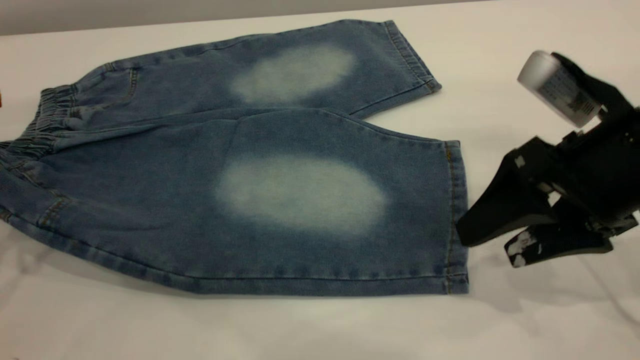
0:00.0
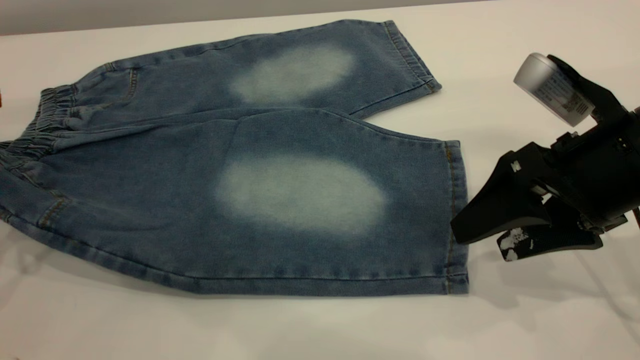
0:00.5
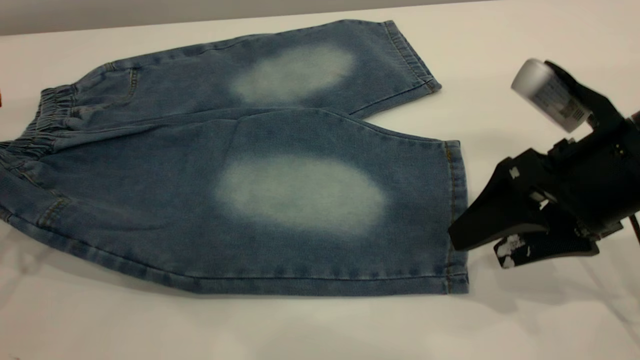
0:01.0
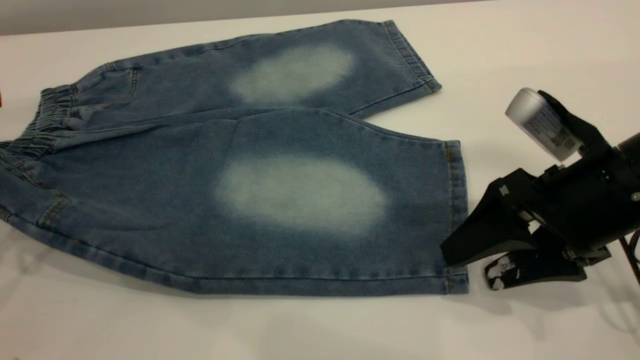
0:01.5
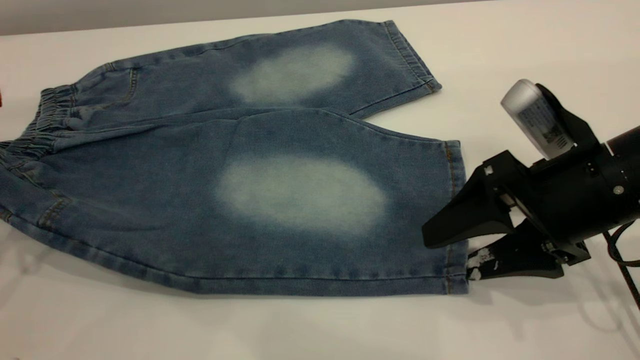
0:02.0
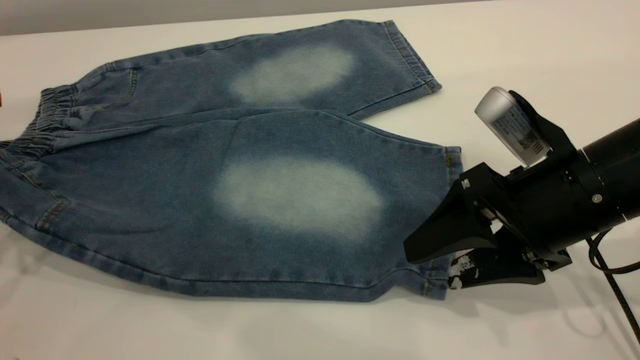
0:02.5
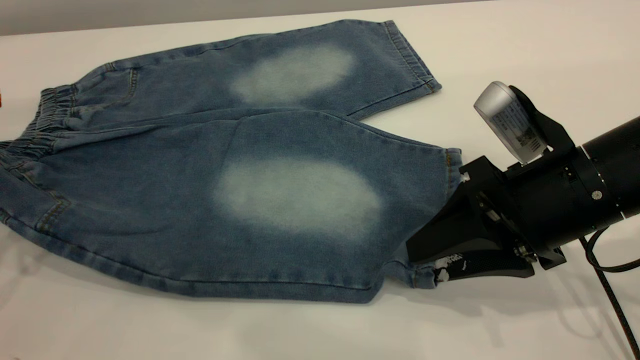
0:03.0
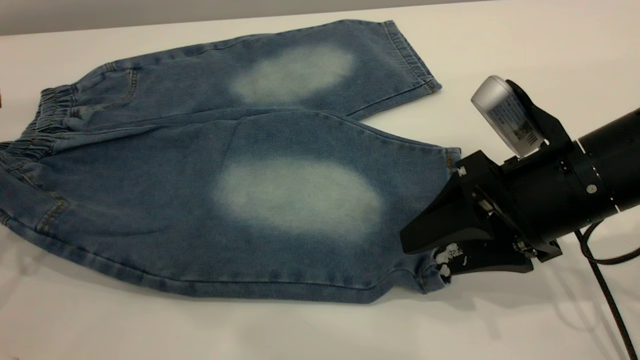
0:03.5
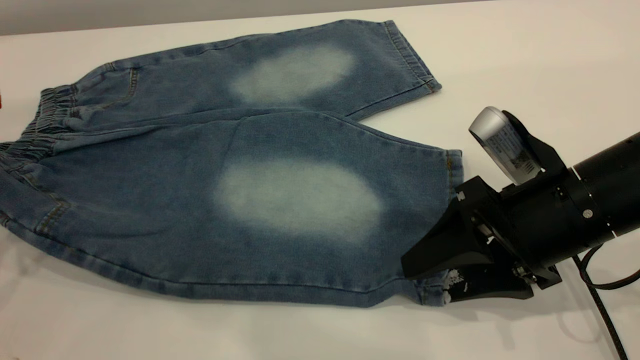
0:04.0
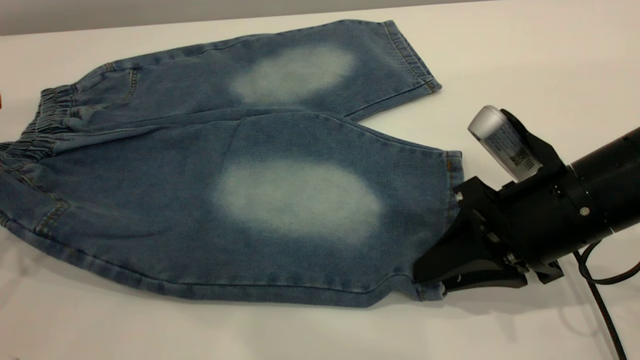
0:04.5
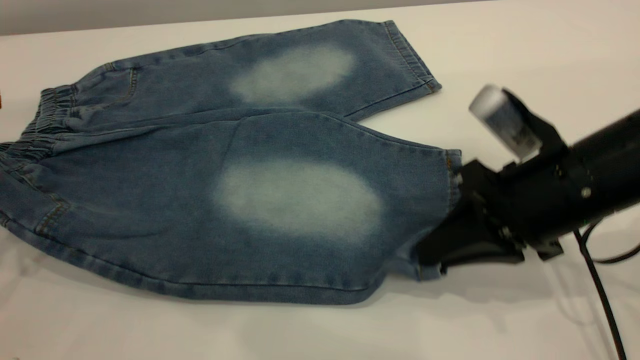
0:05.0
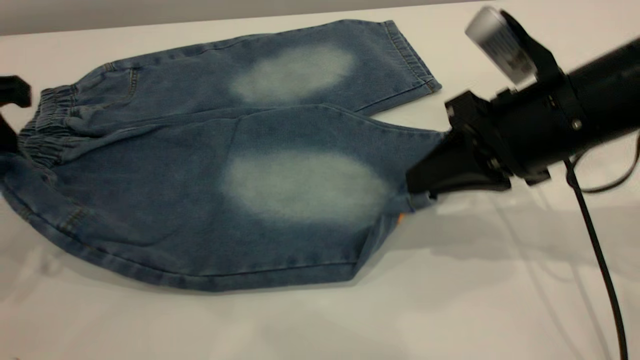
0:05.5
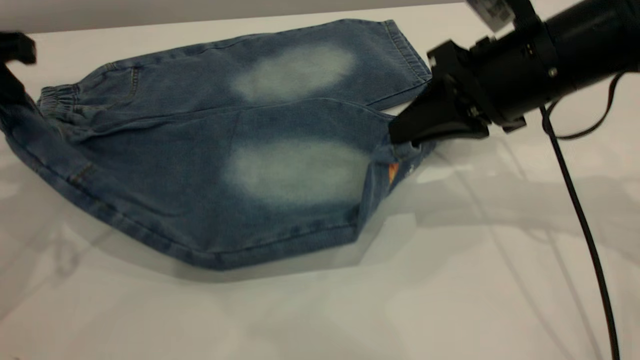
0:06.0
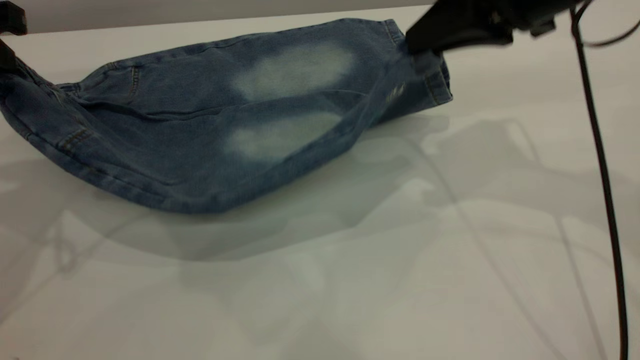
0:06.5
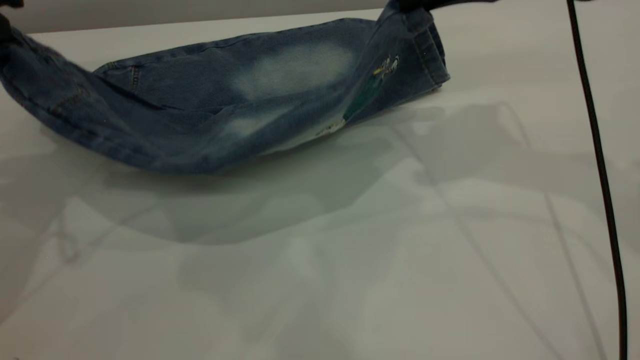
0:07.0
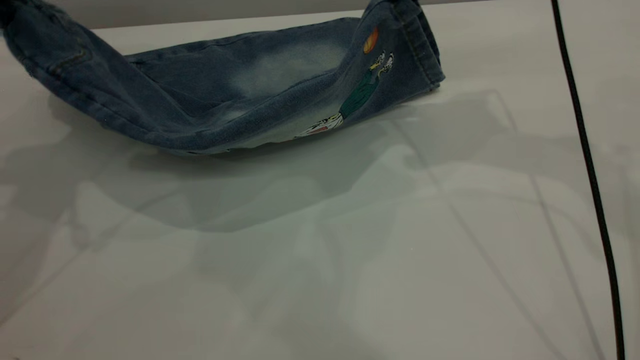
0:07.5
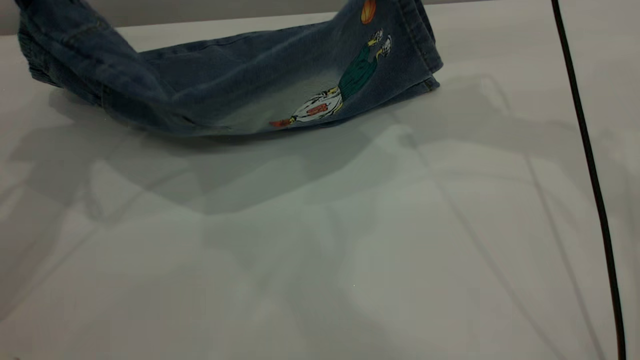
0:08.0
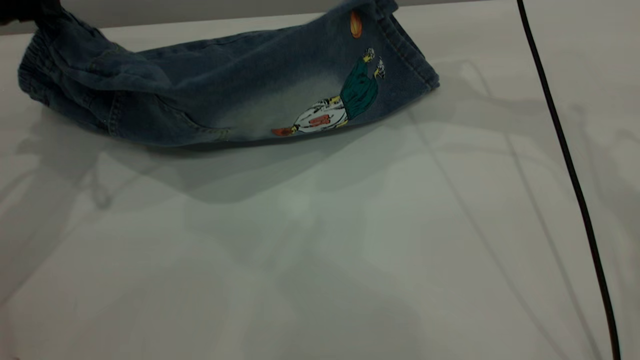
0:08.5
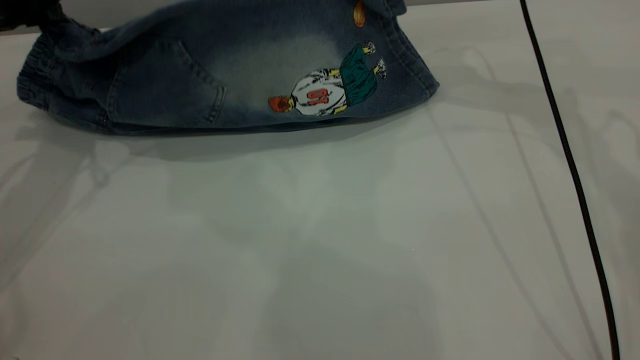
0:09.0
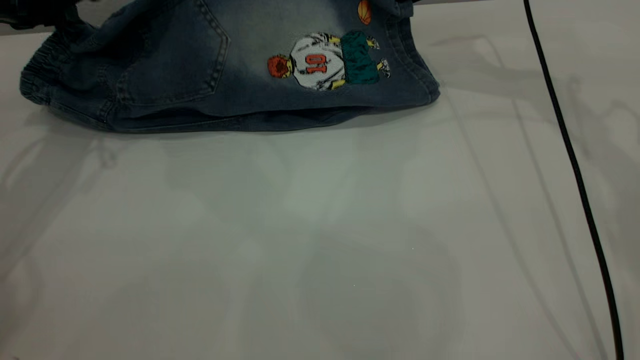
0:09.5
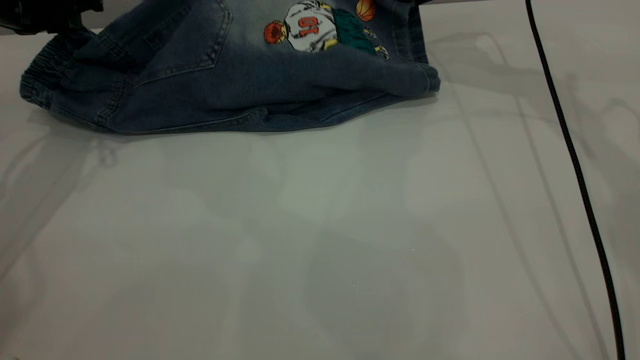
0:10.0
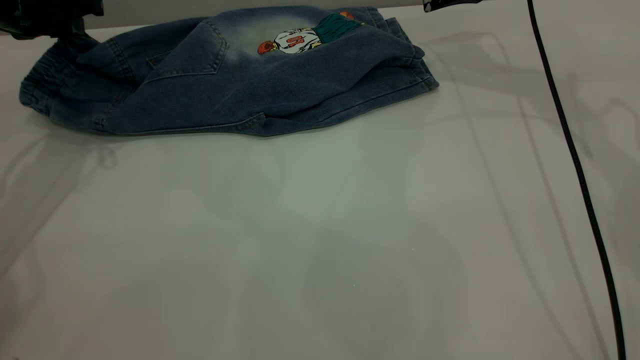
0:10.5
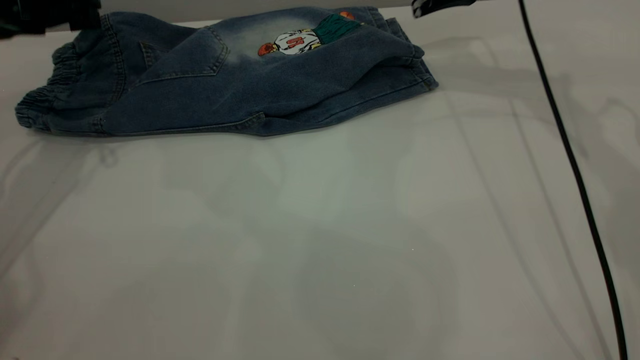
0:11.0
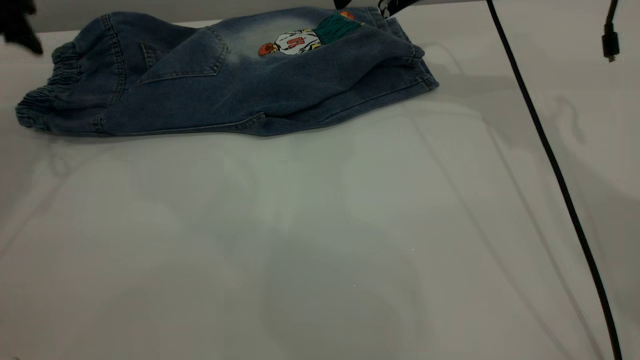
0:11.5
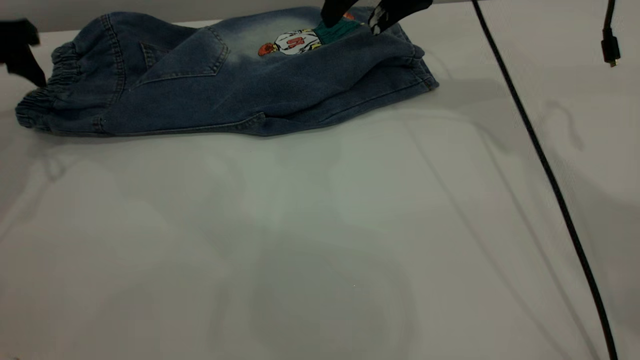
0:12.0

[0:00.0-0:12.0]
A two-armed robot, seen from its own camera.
Step, 0:00.0 to 0:11.0: Fold the bottom of the pants upward.
0:00.0 to 0:04.0: There are only small adjustments of the grippers.
0:04.0 to 0:06.0: The left gripper shifts by some 5 cm. The right gripper travels forward and upward by roughly 10 cm, and closes its fingers.
0:06.0 to 0:08.0: The left gripper moves forward, about 5 cm; the right gripper is displaced forward and upward by some 15 cm.
0:08.0 to 0:10.0: The right gripper is displaced forward and downward by about 10 cm, while the left gripper is displaced downward and forward by some 10 cm.
0:10.0 to 0:12.0: Both grippers travel together to the left, some 5 cm. The right gripper opens its fingers, while the left gripper opens its fingers.

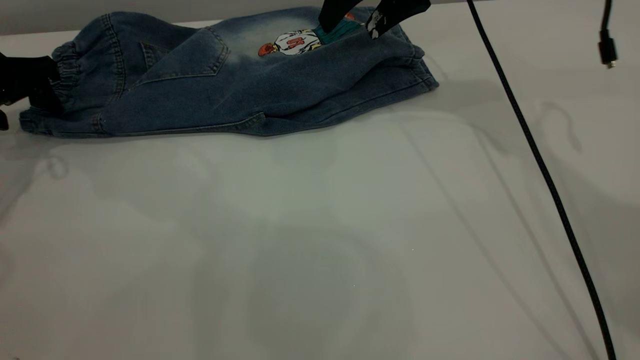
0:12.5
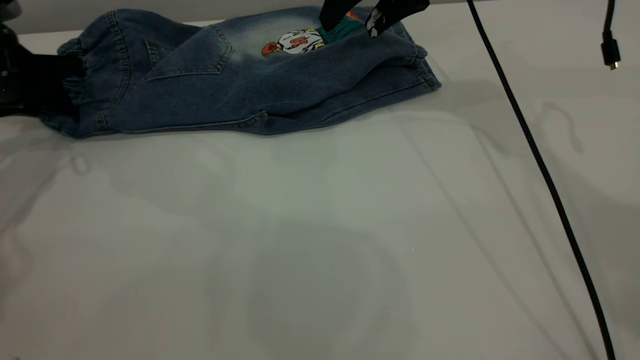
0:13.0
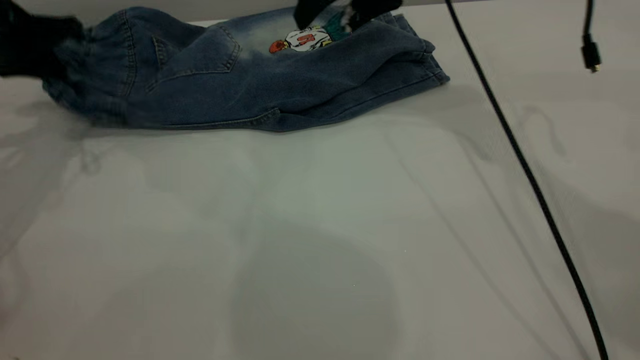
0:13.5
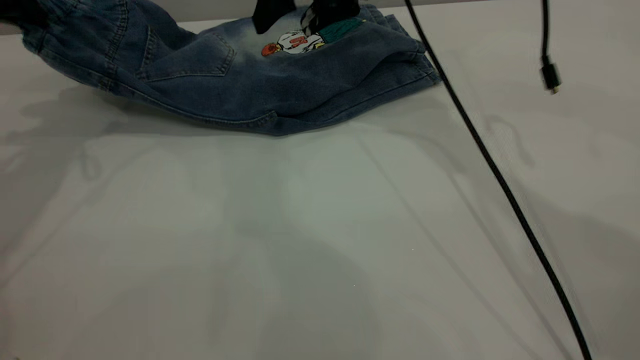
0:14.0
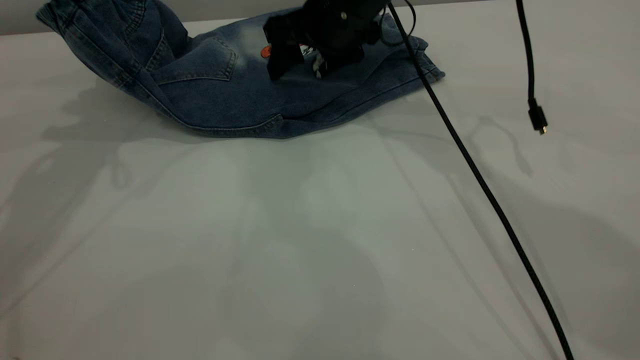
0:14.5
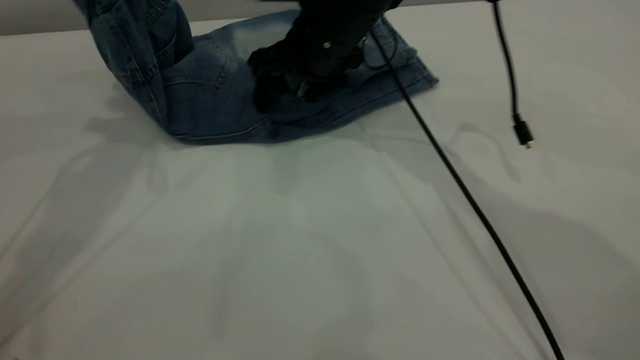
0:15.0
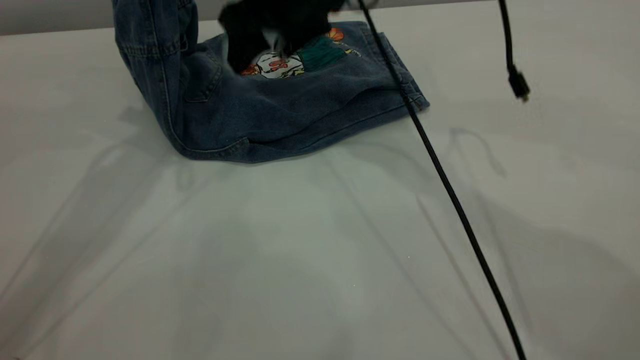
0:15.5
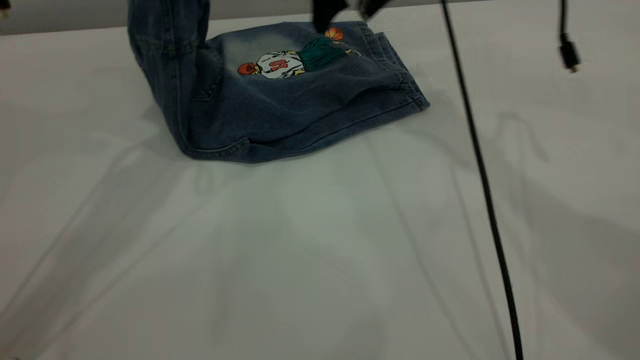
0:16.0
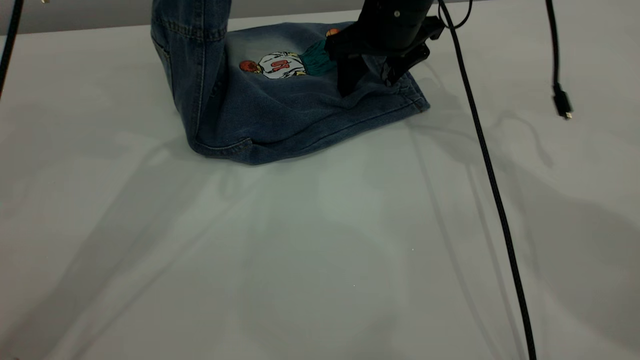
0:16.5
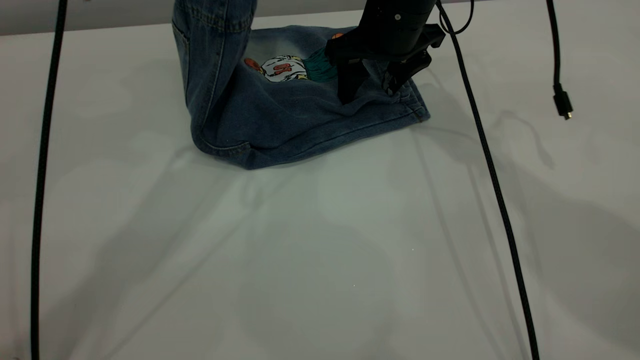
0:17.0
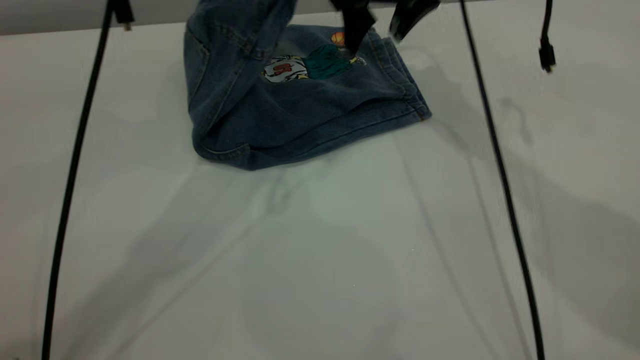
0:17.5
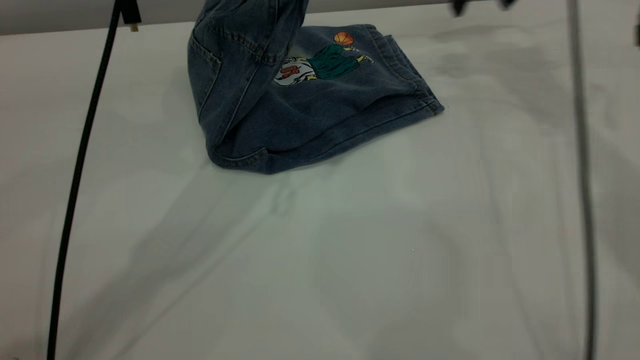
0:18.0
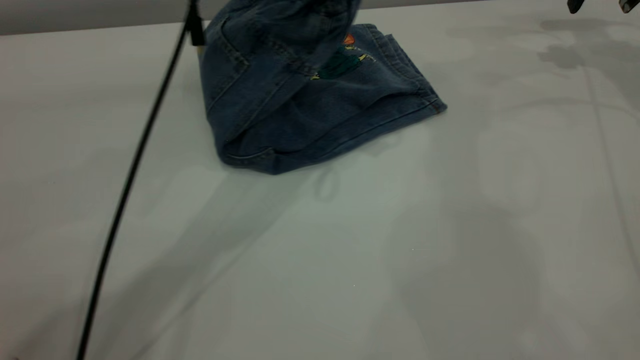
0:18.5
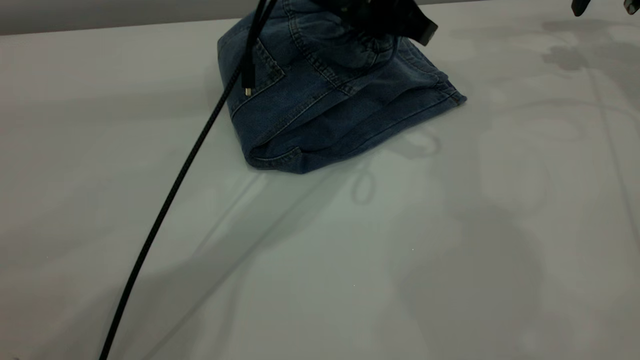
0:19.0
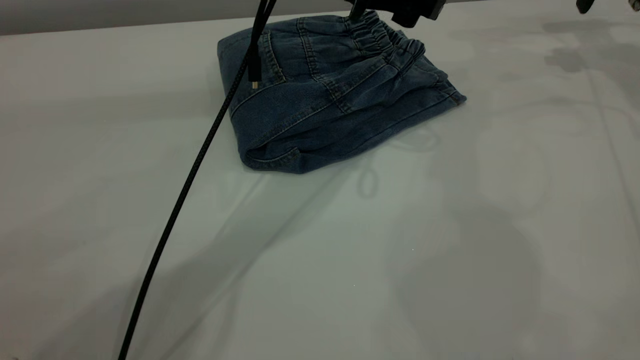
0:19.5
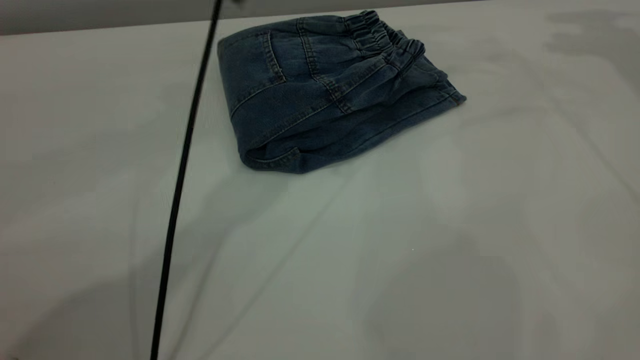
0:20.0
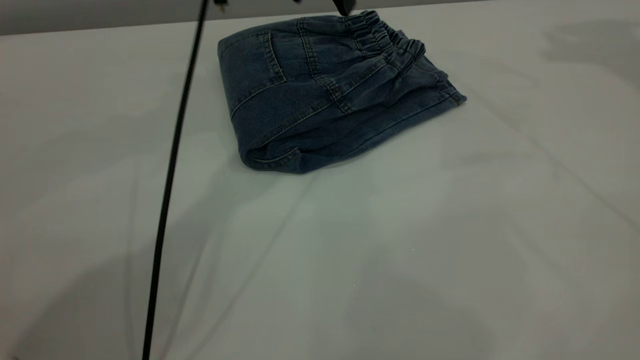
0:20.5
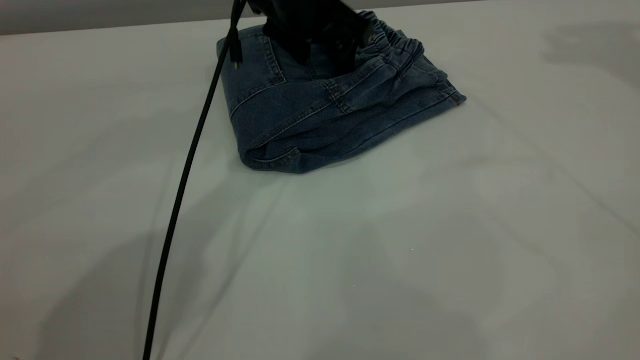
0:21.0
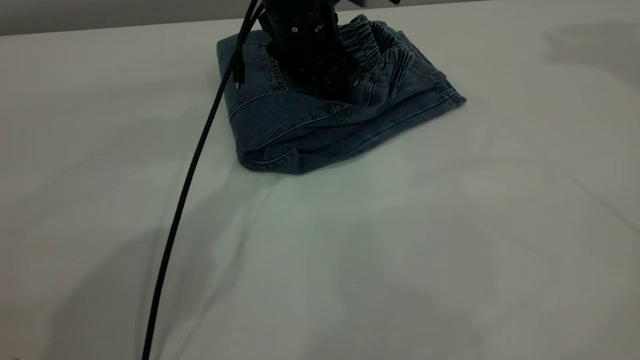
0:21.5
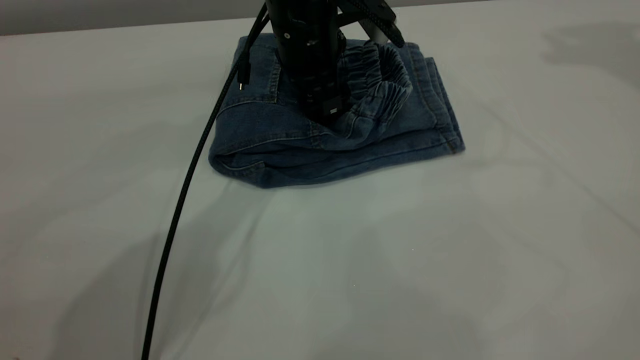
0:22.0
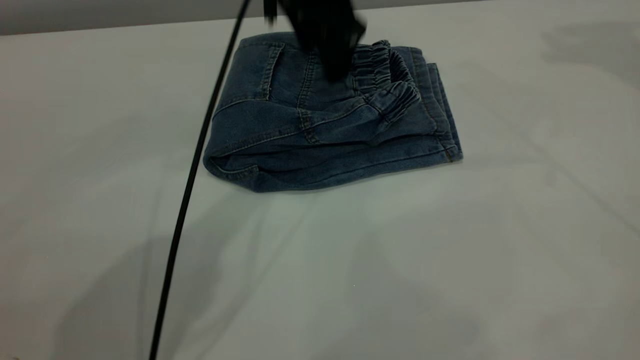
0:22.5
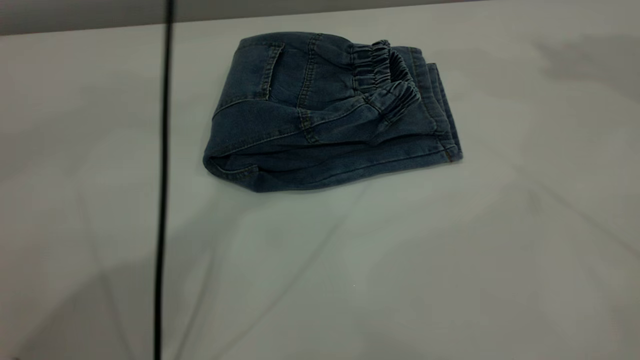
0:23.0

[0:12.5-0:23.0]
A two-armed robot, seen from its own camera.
Step, 0:12.5 to 0:19.5: Fold the pants from left to right.
0:12.5 to 0:14.5: The right gripper is displaced to the left and downward by roughly 10 cm. The left gripper is displaced upward and to the right by some 15 cm, and closes its fingers.
0:14.5 to 0:16.5: The left gripper is displaced to the right by roughly 15 cm.
0:16.5 to 0:19.0: The right gripper shifts approximately 25 cm to the right. The left gripper goes some 20 cm to the right and downward.
0:19.0 to 0:21.0: The right gripper is displaced upward by some 25 cm, while the left gripper moves forward, some 5 cm, goes upward and returns, roughly 10 cm each way, and opens its fingers.
0:21.0 to 0:23.0: The right gripper goes about 5 cm upward. Meanwhile the left gripper moves upward, about 25 cm.
